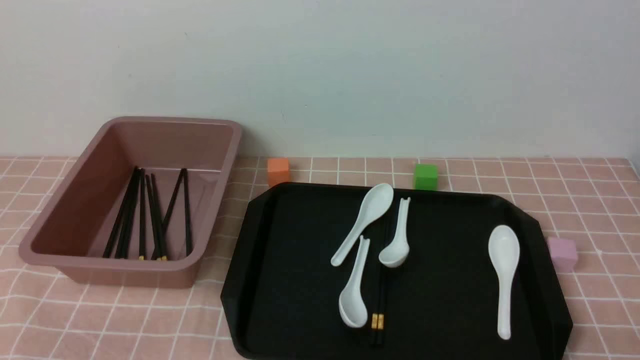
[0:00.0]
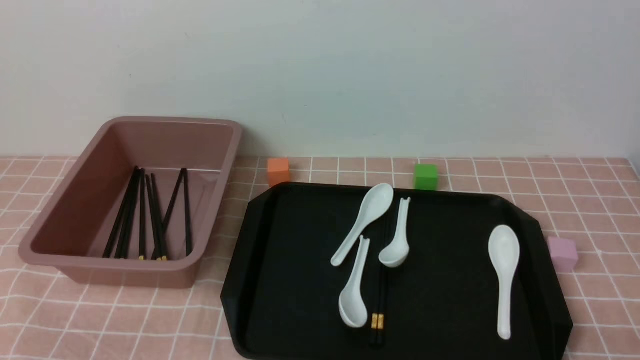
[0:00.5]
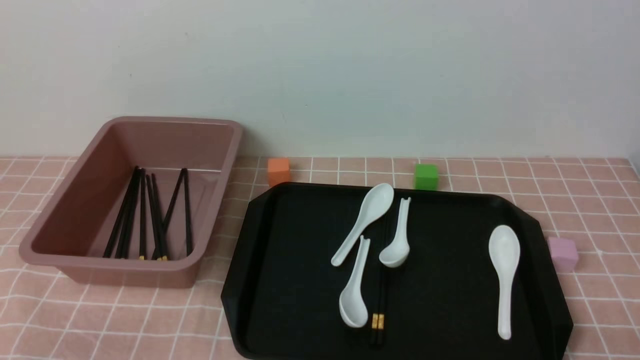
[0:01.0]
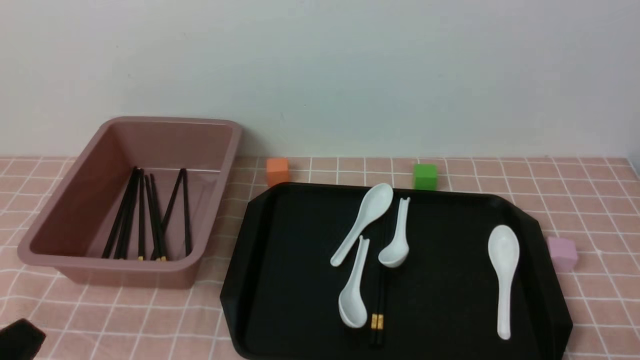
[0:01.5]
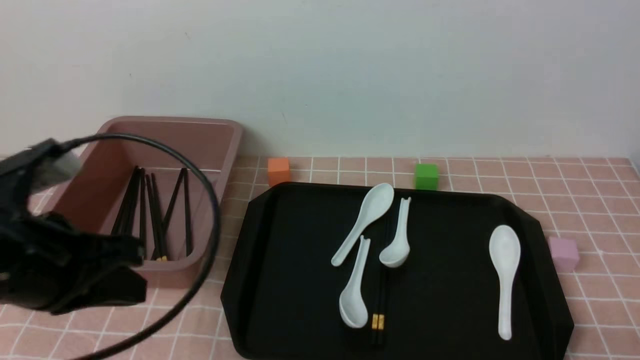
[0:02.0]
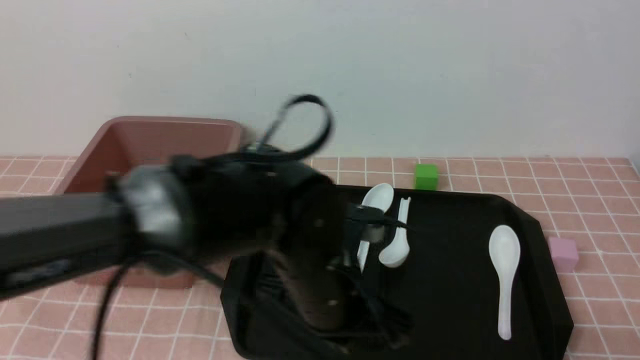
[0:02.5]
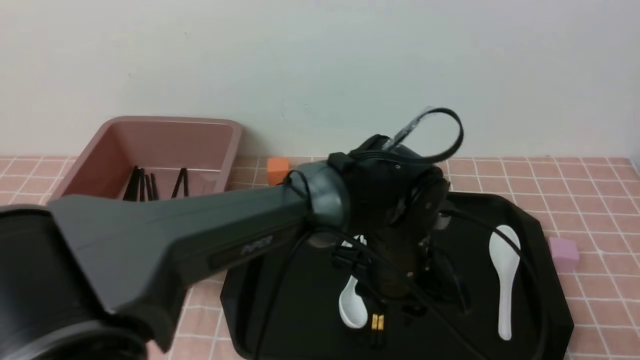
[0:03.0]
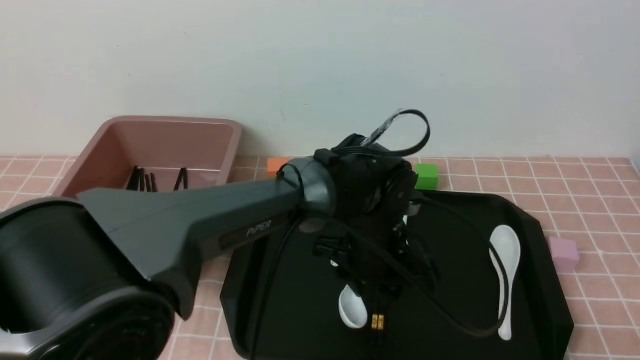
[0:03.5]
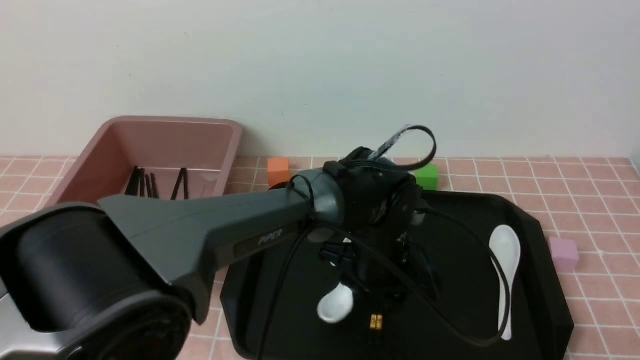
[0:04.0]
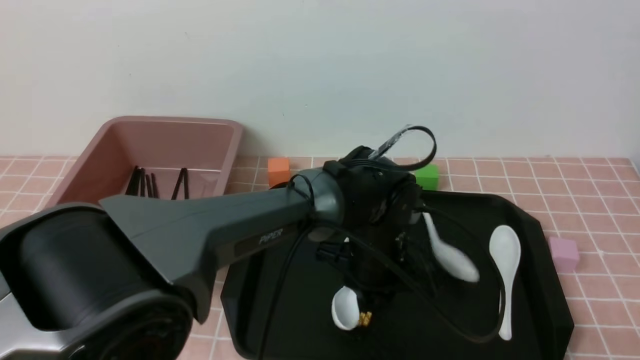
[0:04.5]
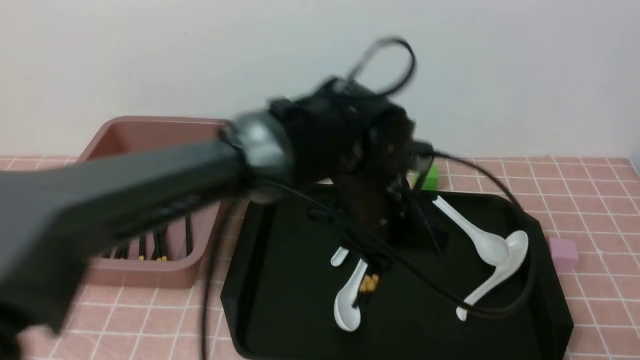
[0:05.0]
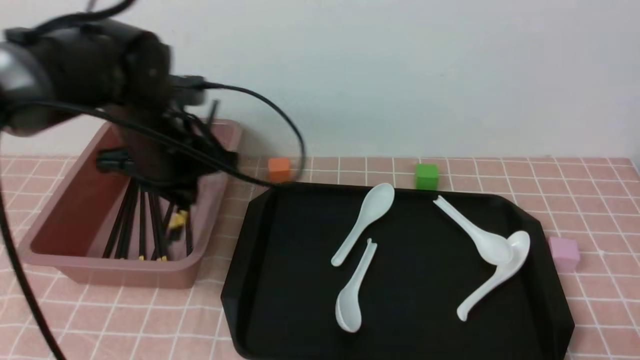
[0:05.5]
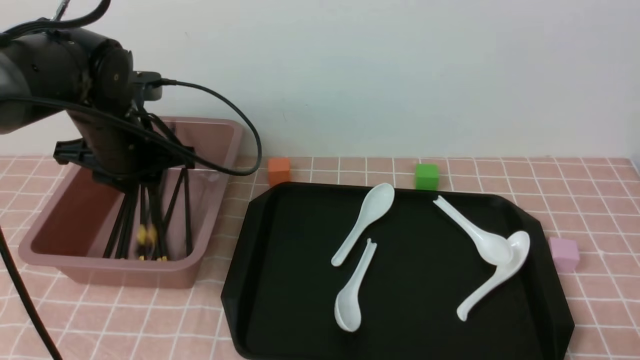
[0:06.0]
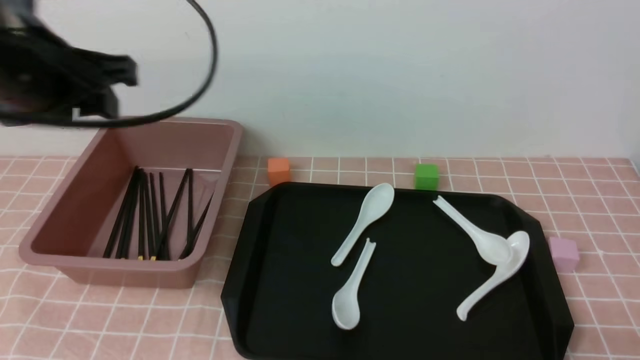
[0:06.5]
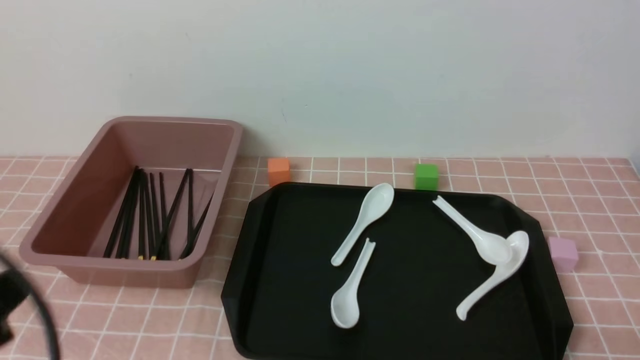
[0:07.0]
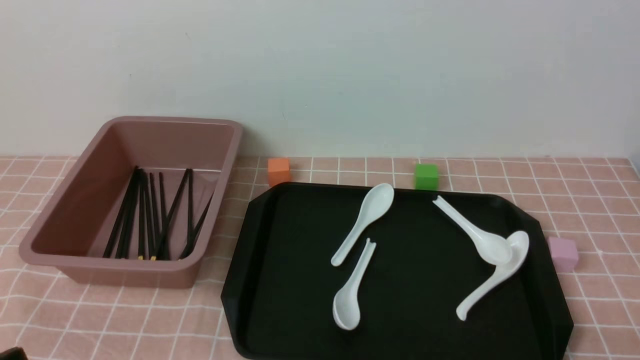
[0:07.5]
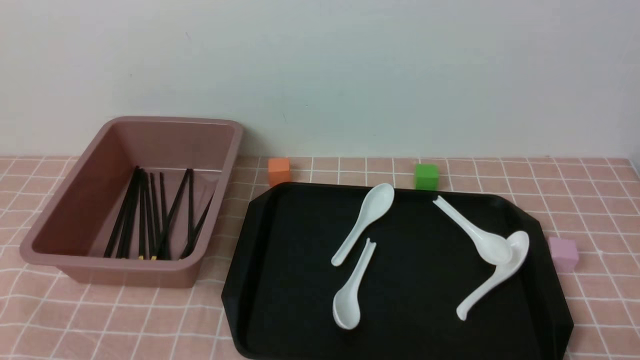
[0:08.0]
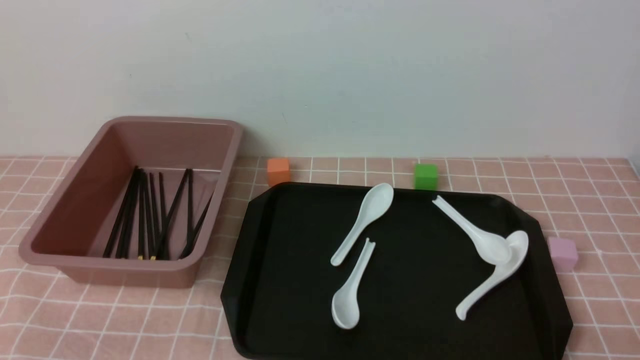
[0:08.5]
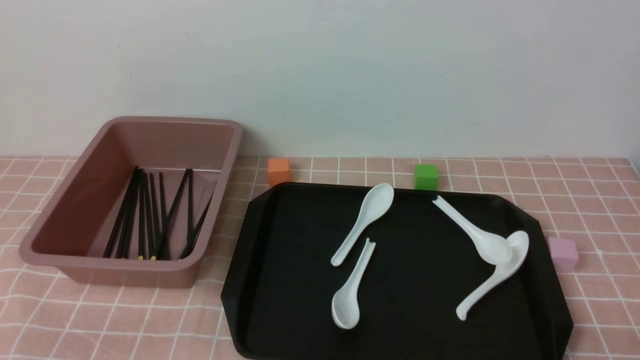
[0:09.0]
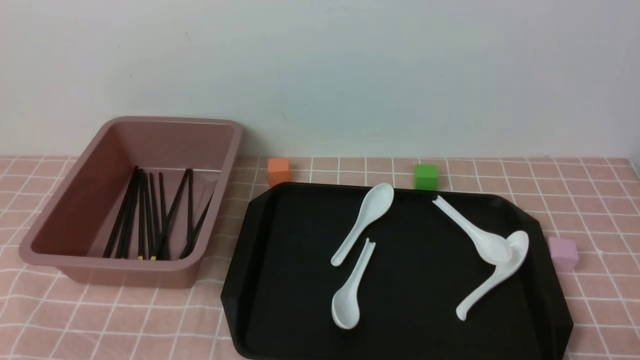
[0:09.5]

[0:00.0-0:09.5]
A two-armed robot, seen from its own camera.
Step, 0:00.0 to 0:05.0: use the left arm to grab a pair of chopsticks.
Step, 0:05.5 to 0:06.0: use the left arm to put the chopsticks into the lunch box.
0:02.0 to 0:04.0: The right gripper opens its fingers, while the left gripper is displaced to the right, forward and downward by approximately 35 cm, and opens its fingers.
0:04.0 to 0:05.5: The left gripper is displaced to the left and upward by approximately 20 cm, and closes.
0:05.5 to 0:07.5: The left gripper is displaced backward and to the left by roughly 35 cm, and opens and closes again.
